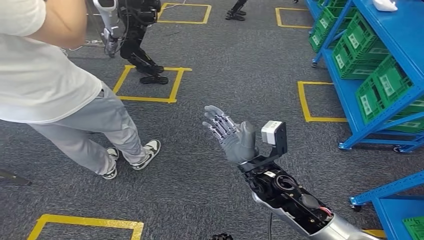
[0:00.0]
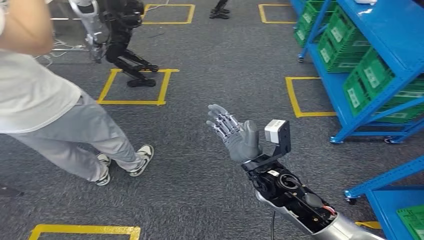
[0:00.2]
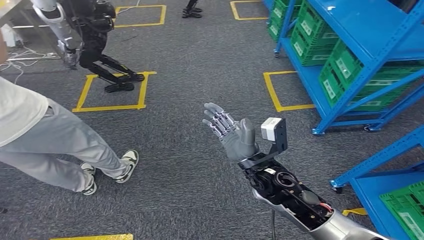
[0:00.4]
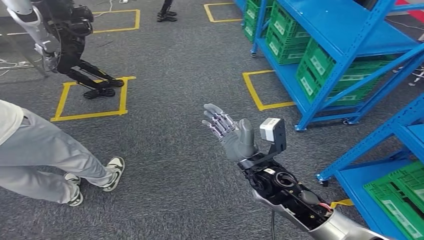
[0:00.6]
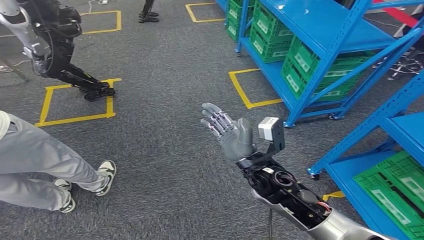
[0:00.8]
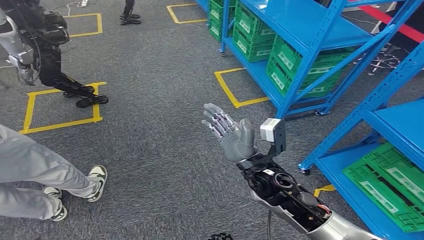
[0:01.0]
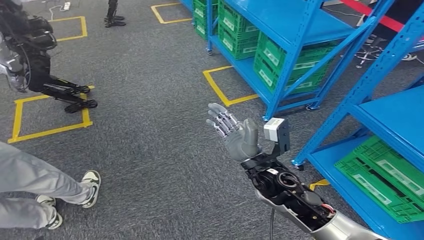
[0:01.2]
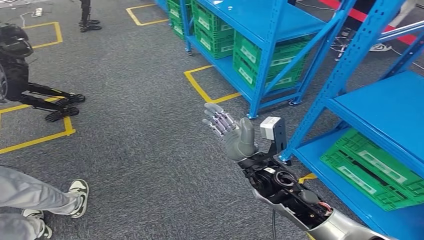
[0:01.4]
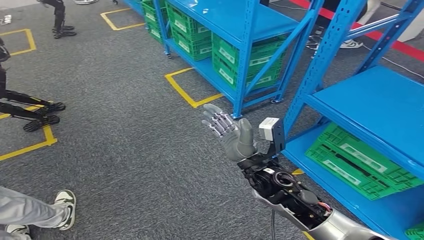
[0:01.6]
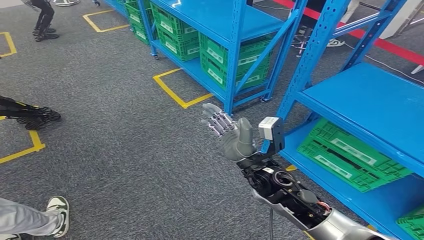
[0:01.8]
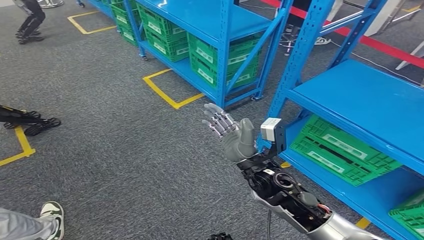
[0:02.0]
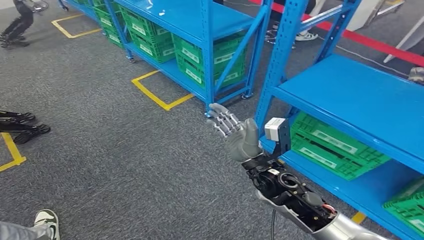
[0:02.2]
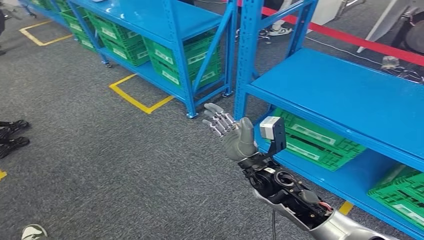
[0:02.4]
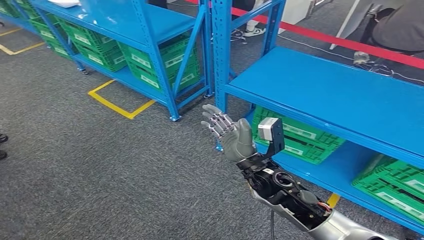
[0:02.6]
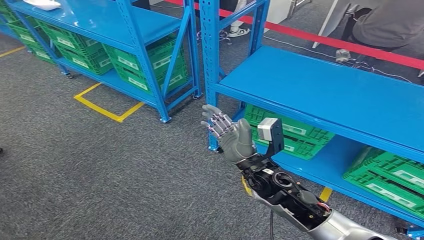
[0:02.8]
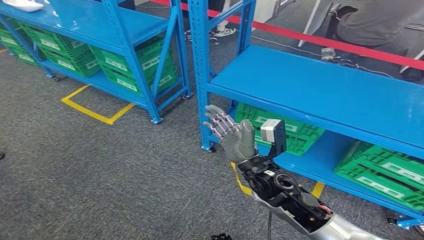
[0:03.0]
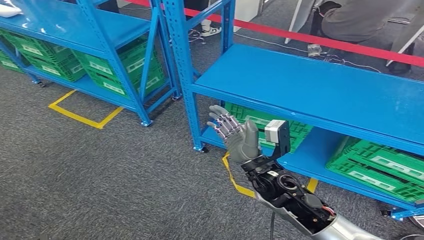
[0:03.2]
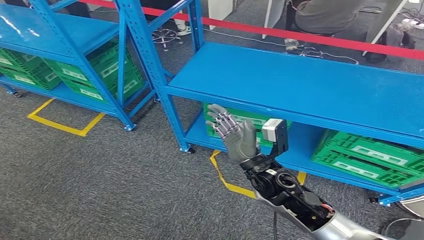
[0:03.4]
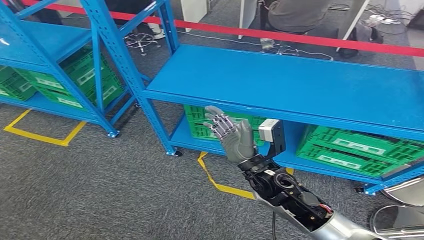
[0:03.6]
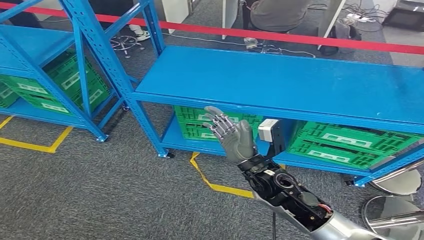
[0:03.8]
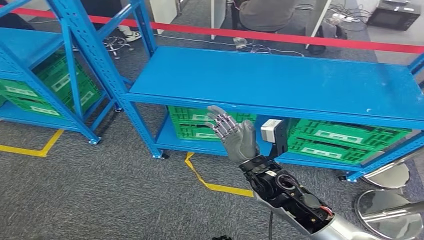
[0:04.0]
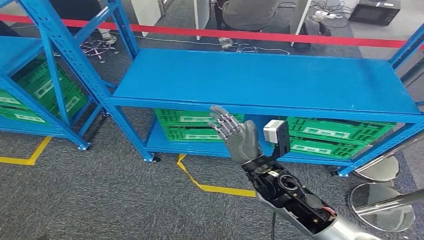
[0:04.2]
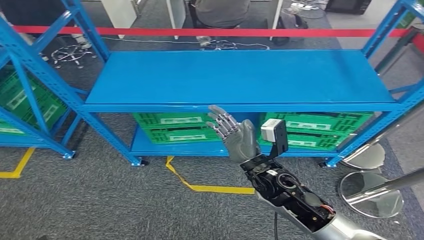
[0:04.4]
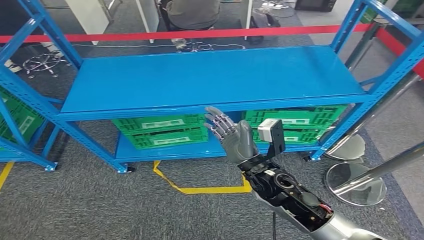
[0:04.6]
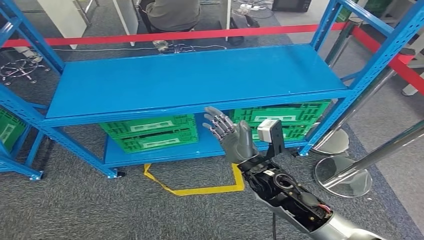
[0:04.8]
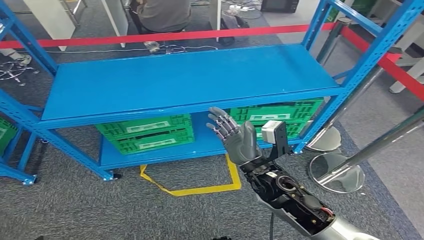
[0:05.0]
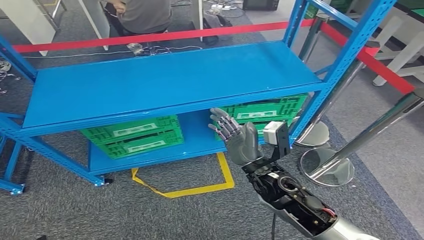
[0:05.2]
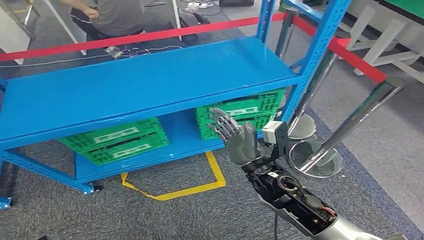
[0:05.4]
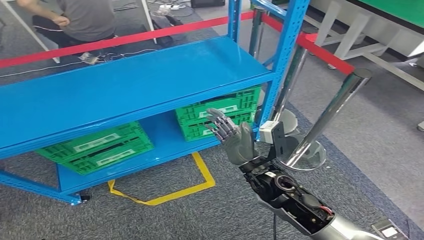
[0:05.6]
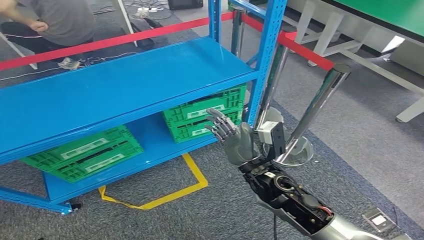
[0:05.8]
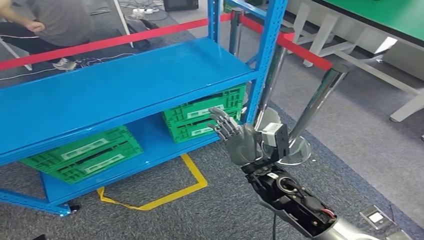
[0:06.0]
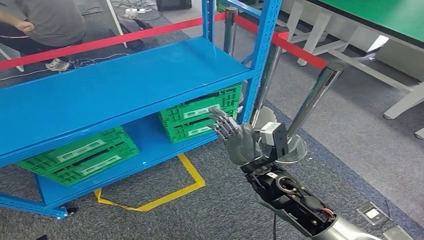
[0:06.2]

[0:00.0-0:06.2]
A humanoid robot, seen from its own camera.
Step, 0:00.0 to 0:06.2: Move to the initial position at the workbench.

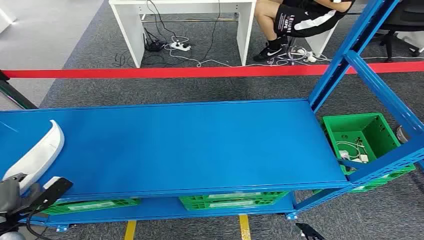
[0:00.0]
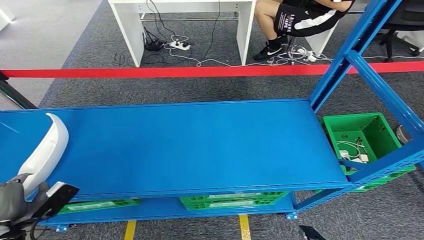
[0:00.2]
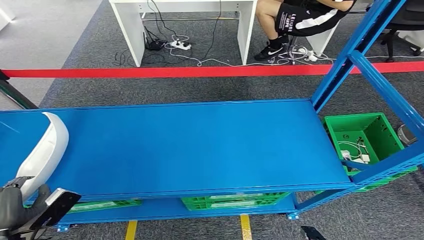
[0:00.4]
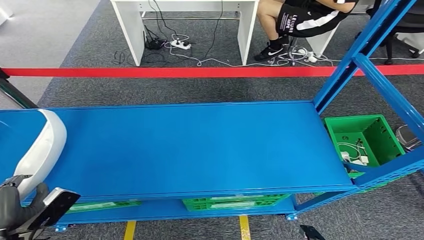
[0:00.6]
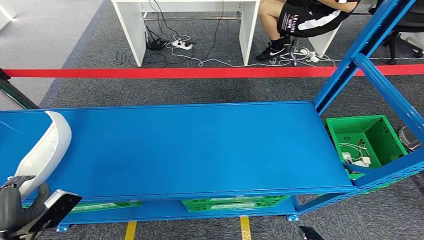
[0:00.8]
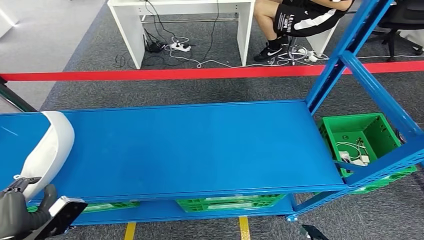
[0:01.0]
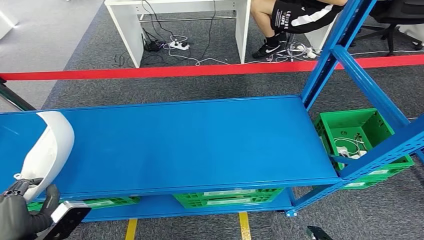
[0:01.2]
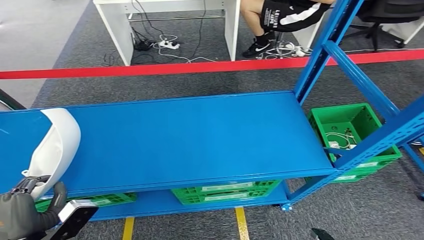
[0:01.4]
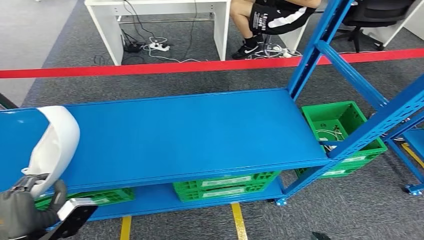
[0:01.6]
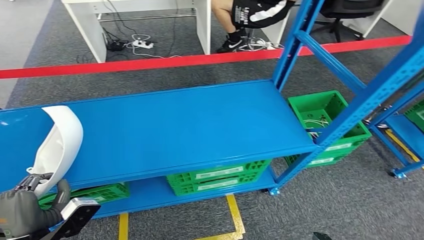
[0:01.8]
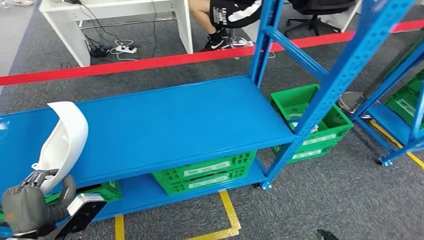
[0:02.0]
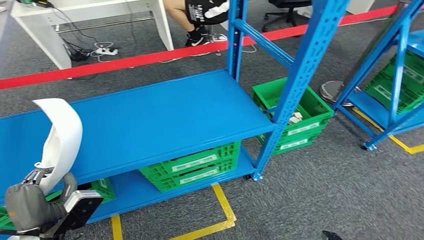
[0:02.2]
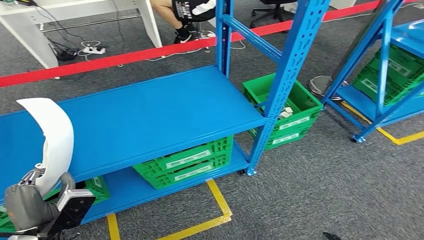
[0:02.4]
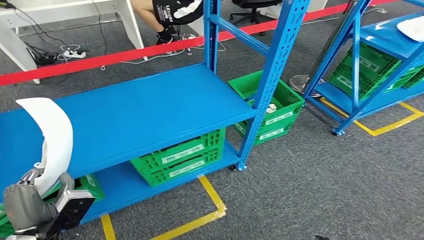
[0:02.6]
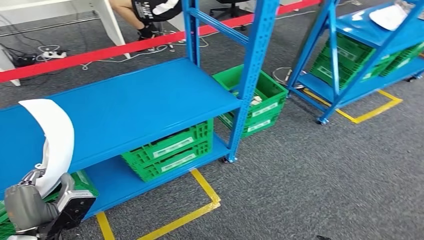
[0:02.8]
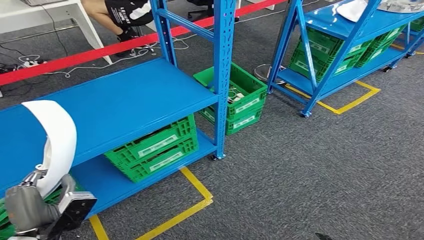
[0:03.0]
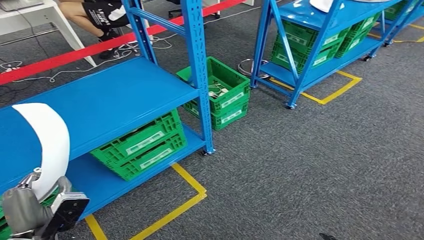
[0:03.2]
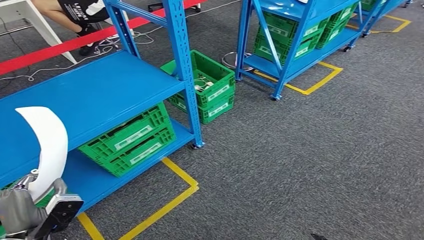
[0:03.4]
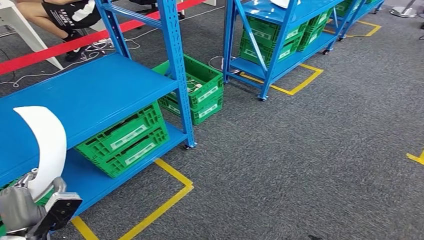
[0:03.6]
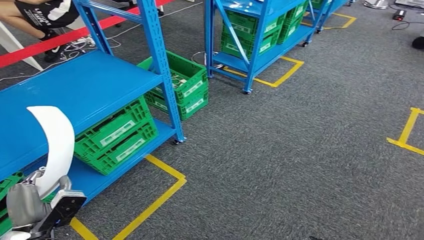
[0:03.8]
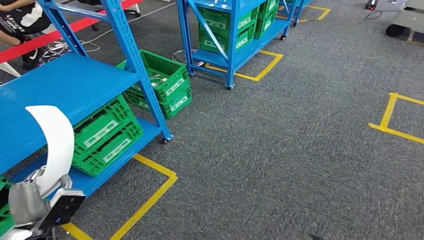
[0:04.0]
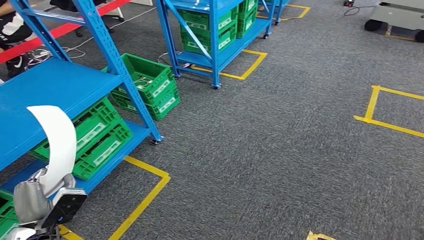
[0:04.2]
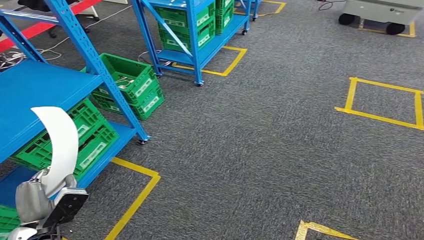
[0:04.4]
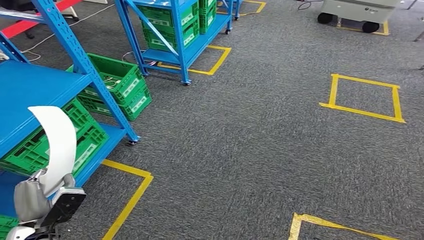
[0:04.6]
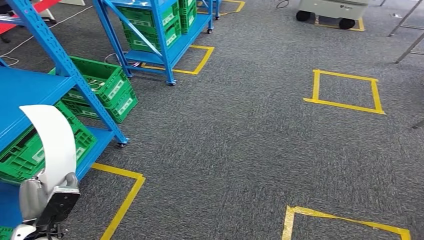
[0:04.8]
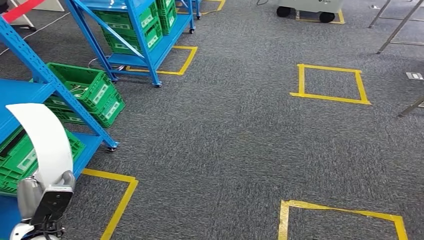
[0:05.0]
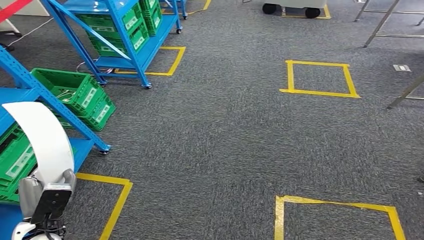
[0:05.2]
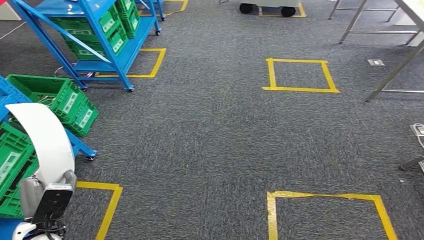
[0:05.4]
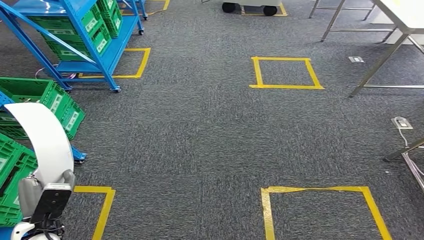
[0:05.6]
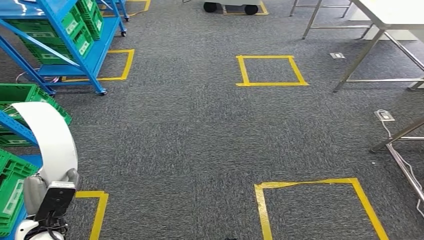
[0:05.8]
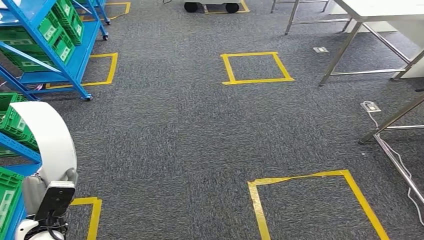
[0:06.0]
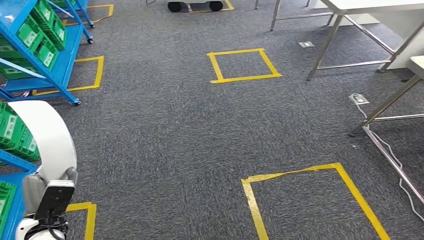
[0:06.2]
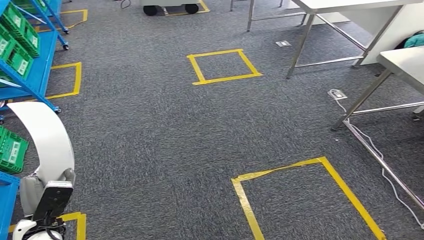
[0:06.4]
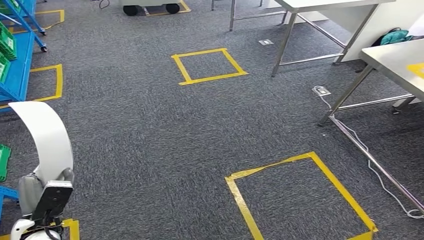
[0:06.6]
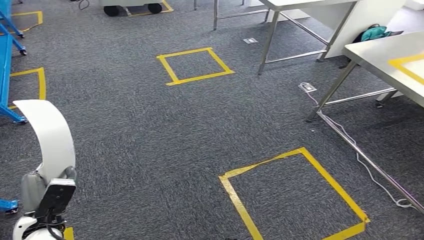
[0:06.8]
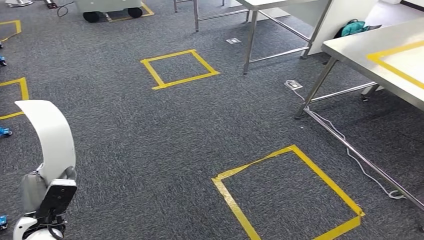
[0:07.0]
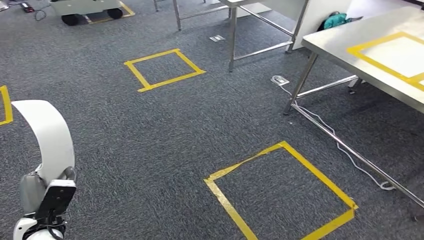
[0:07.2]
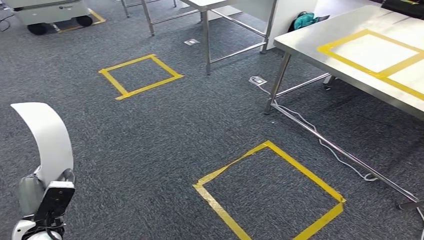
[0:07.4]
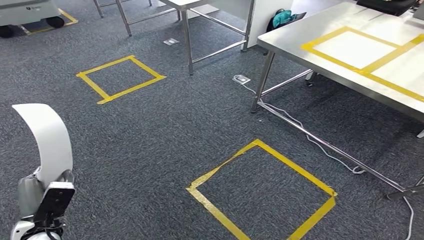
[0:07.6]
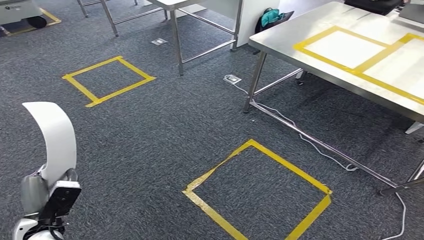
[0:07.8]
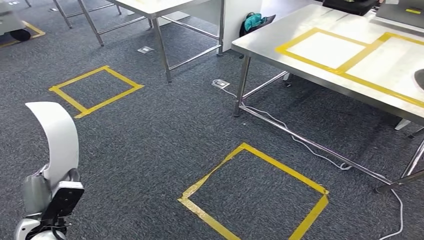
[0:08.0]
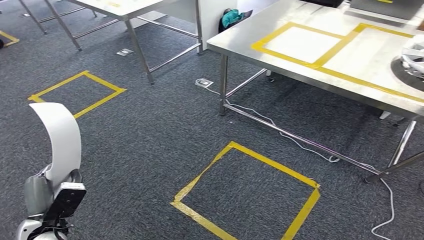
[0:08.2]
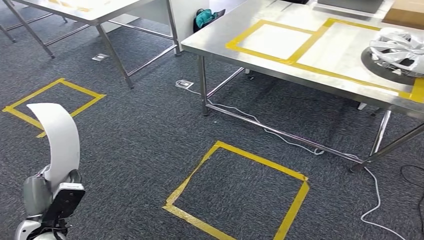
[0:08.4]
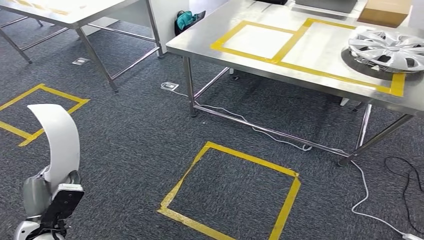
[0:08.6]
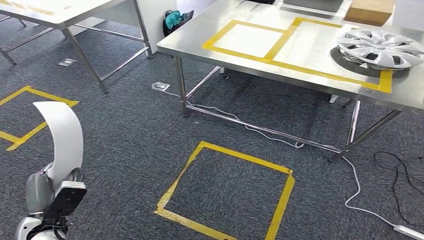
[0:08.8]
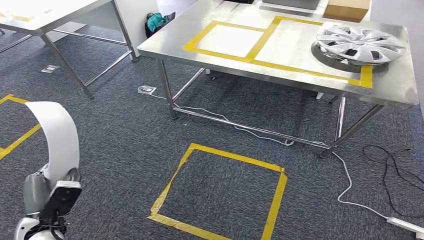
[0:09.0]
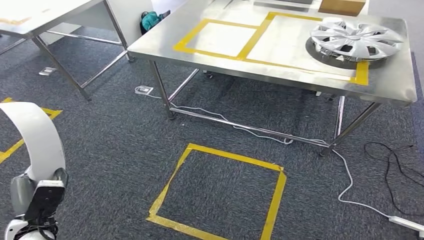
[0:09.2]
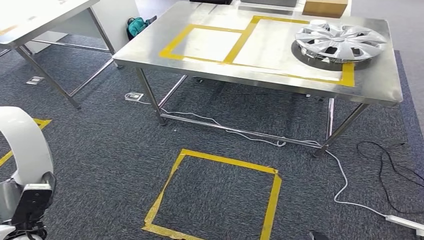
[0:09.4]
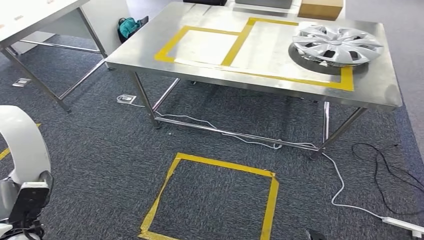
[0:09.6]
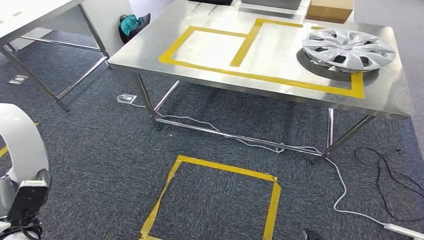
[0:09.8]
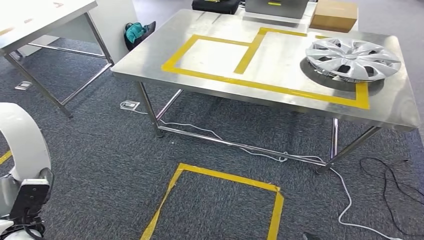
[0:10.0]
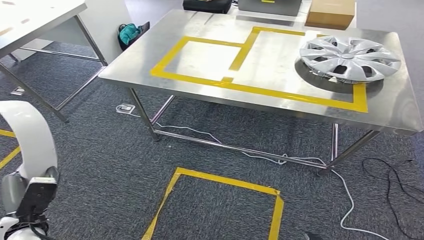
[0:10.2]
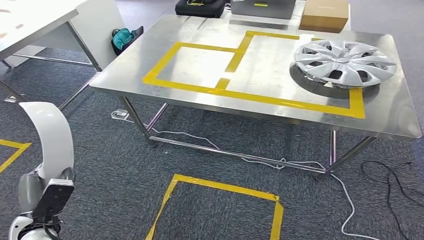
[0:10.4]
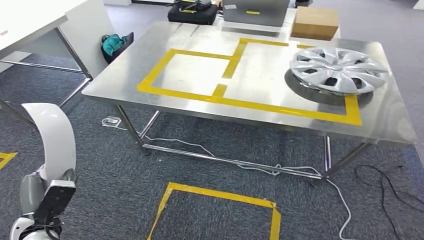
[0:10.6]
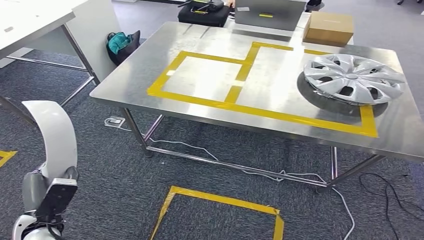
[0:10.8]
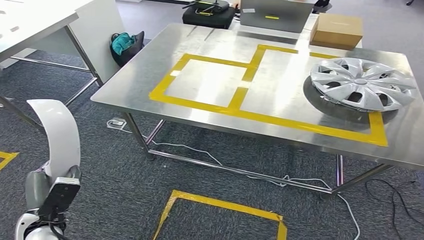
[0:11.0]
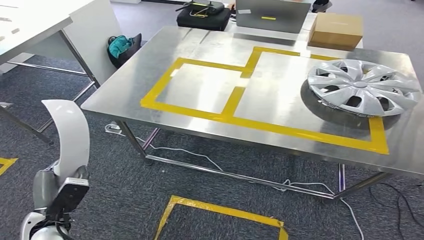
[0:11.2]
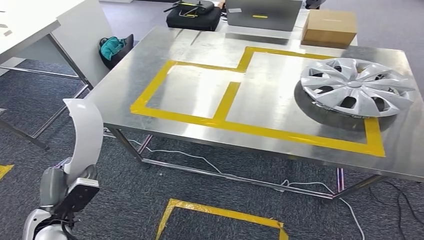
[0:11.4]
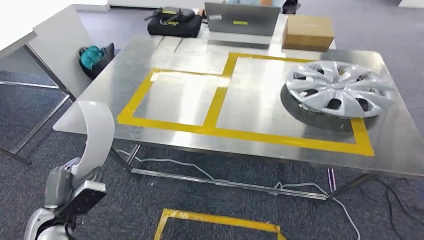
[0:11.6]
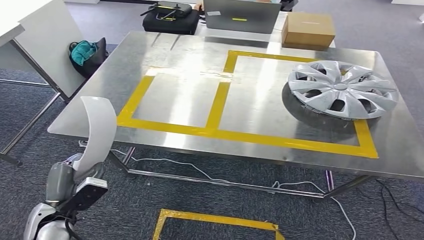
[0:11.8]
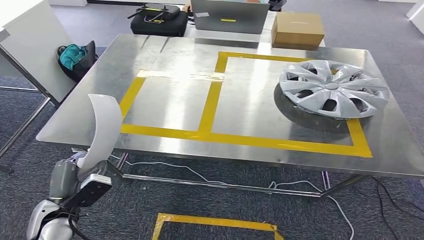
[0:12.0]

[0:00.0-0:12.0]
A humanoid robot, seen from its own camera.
Step, 0:00.0 to 0:03.0: Pick up the small component from the shelf.
Step, 0:03.4 to 0:11.4: Move the small component to the workbench.
